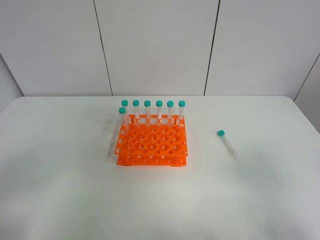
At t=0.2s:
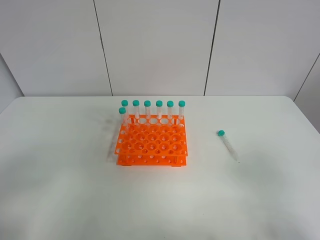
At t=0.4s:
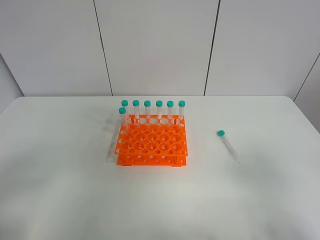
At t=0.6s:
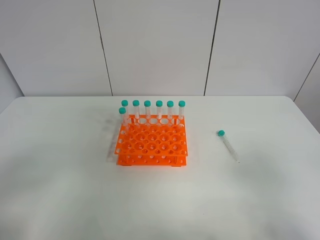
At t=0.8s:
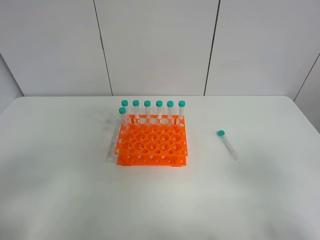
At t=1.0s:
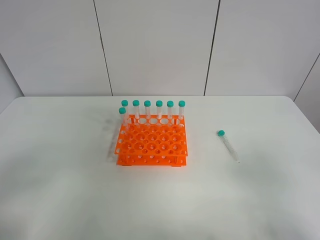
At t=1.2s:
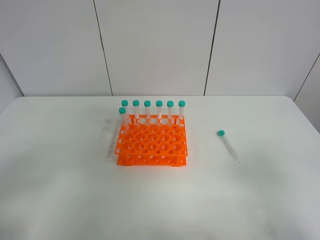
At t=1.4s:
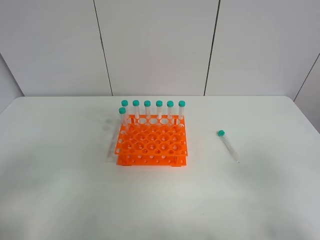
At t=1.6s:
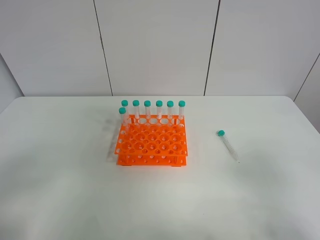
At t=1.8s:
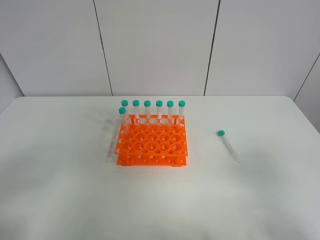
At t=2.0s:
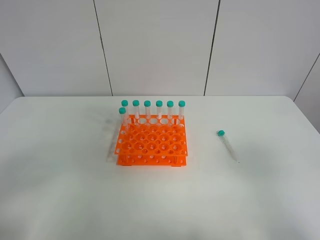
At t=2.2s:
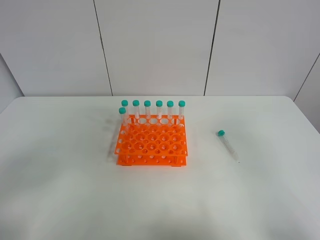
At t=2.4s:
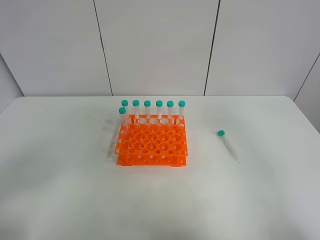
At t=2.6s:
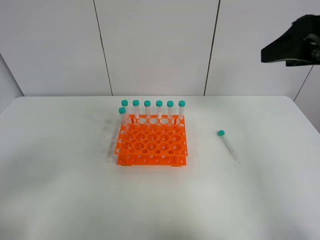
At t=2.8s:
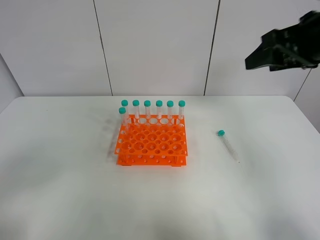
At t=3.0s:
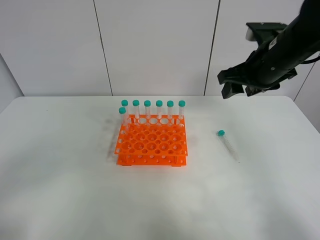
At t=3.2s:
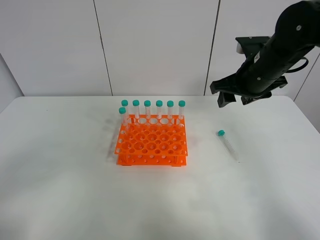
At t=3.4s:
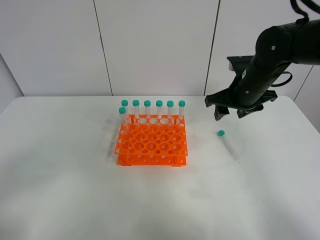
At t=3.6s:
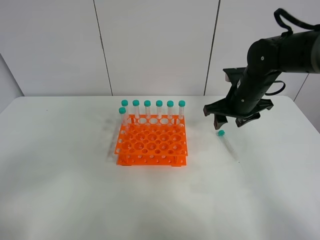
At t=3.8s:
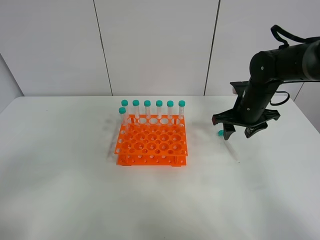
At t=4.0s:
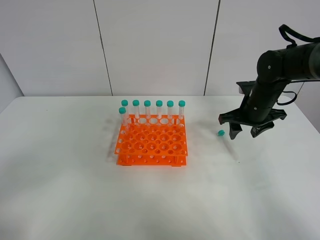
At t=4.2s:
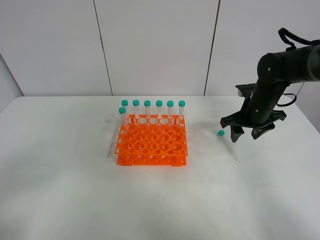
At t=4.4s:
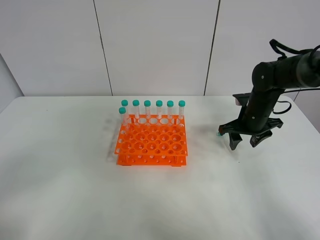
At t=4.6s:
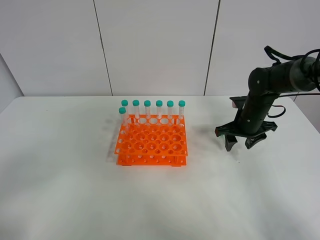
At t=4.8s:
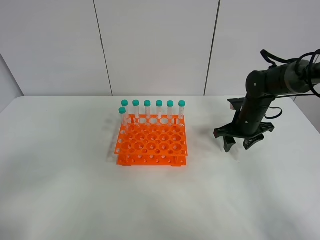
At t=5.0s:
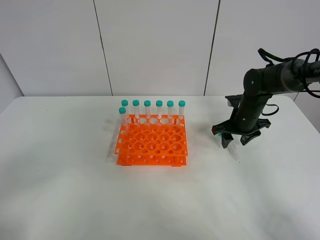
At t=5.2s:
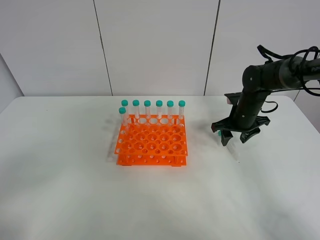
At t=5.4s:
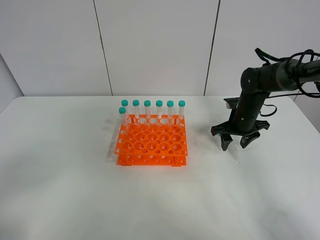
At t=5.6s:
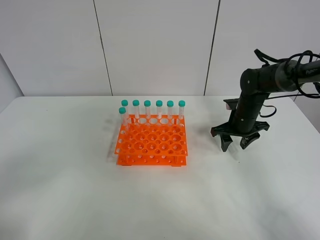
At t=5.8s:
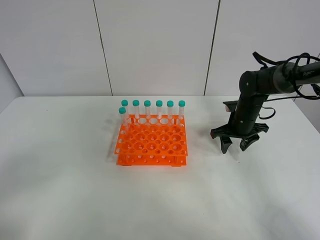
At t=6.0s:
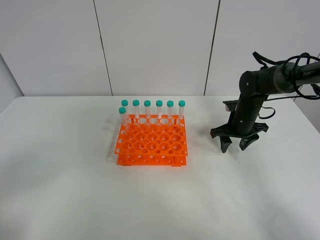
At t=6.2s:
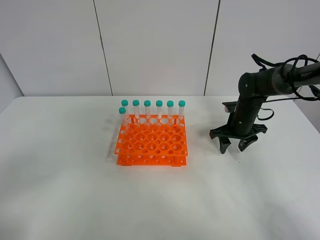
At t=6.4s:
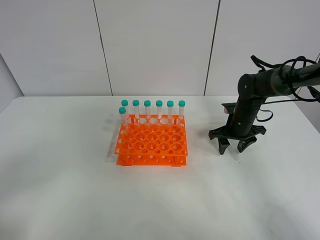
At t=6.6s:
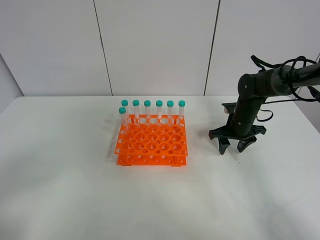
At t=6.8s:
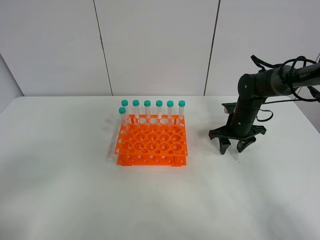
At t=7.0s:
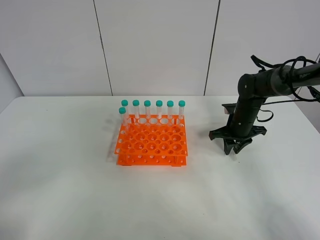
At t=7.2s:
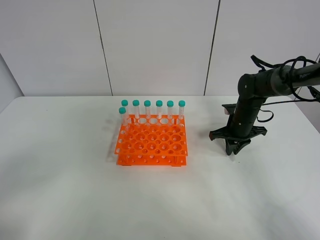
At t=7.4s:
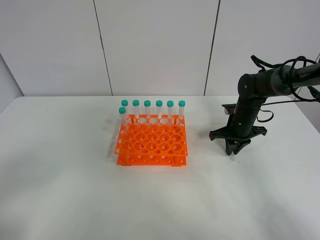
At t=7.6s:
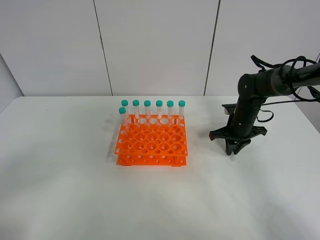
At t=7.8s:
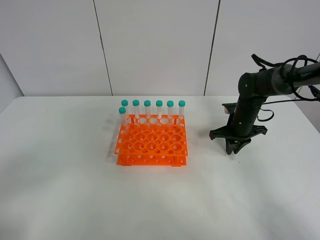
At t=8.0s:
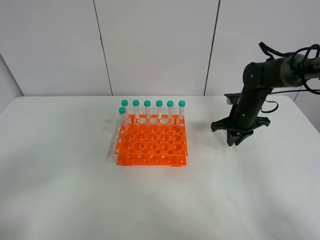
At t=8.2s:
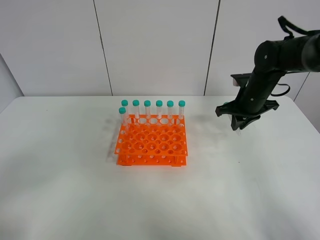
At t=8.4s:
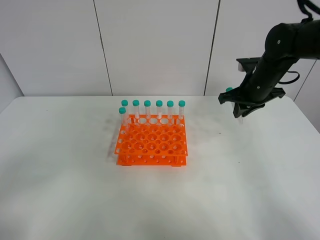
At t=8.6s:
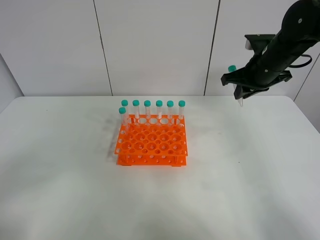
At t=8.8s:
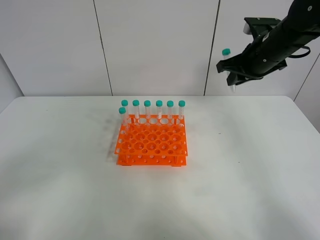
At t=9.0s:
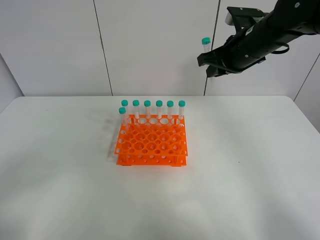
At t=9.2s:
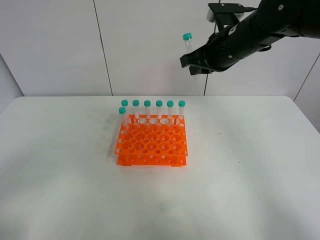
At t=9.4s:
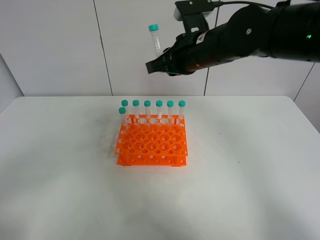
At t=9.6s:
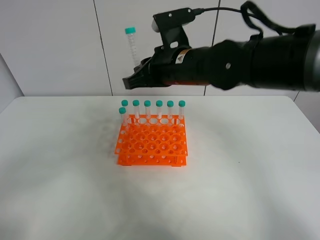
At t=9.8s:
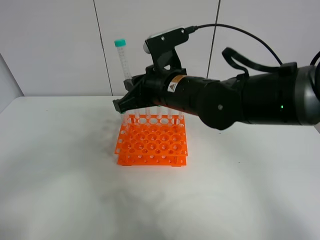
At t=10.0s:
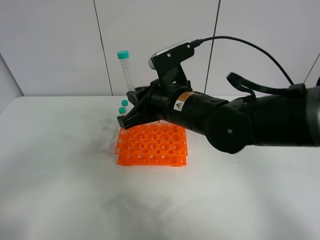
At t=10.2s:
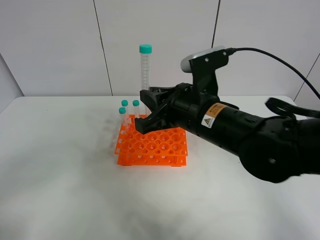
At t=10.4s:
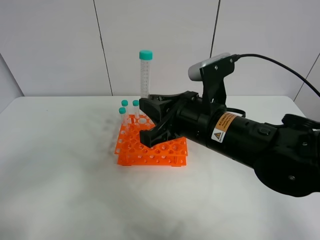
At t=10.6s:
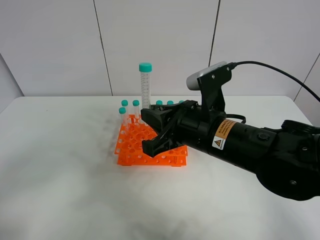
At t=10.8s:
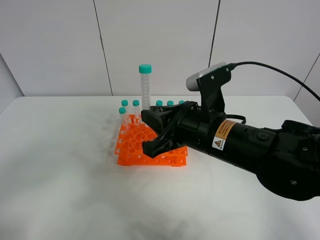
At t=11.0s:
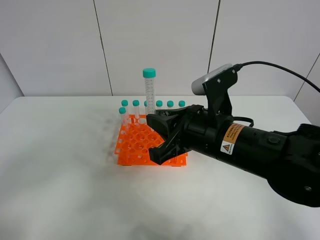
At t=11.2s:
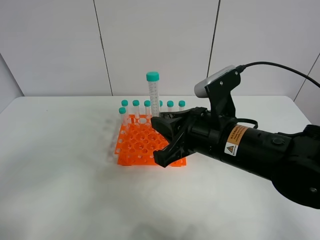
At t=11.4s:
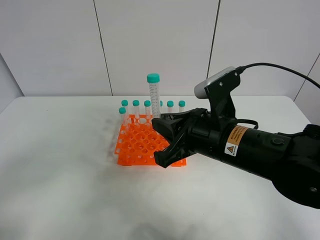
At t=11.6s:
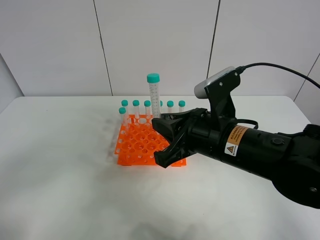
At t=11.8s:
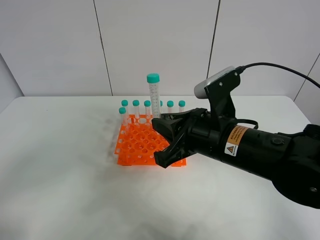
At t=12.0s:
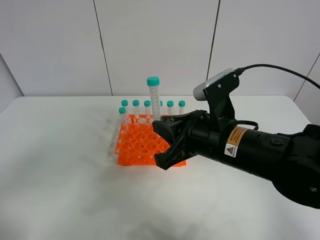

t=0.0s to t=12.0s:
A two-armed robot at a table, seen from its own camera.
Task of the whole recording: Put the test tube on the table back onto the test tube rack.
Step, t=0.0s to t=8.4s: Pick up the test tube with the right gripper.
t=0.0s to t=1.6s: Both grippers stay put.
t=1.6s to t=3.0s: The right gripper goes roughly 35 cm forward.
t=3.0s to t=4.4s: The right gripper goes approximately 15 cm downward.
t=4.4s to t=6.0s: There are only small adjustments of the grippers.
t=6.0s to t=7.6s: The right gripper closes up.
t=7.6s to t=9.0s: The right gripper is displaced upward by about 20 cm.
t=9.0s to t=10.4s: The right gripper goes about 20 cm backward, to the left and downward.

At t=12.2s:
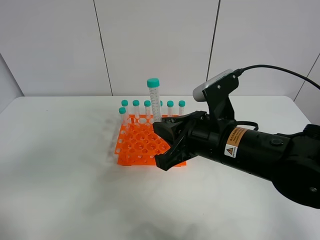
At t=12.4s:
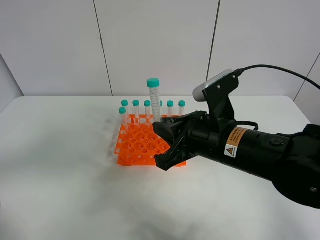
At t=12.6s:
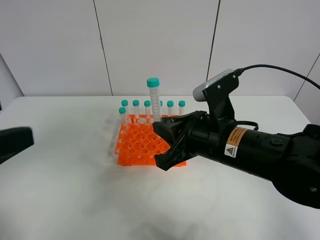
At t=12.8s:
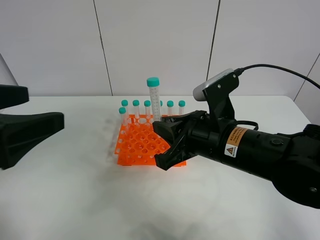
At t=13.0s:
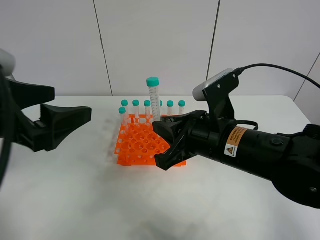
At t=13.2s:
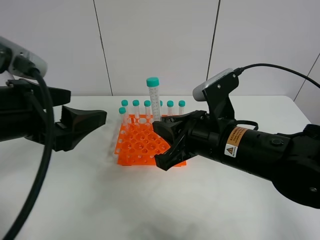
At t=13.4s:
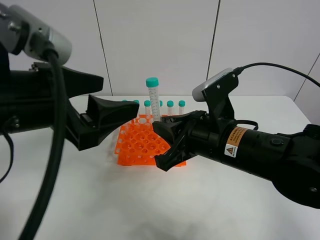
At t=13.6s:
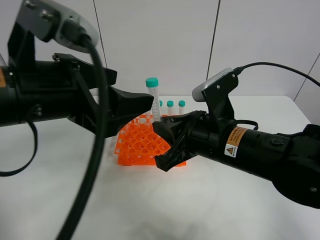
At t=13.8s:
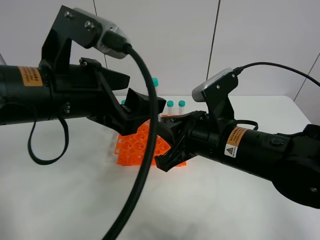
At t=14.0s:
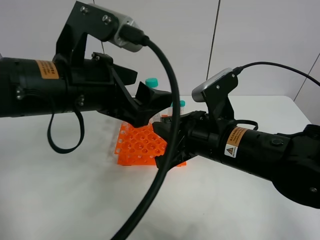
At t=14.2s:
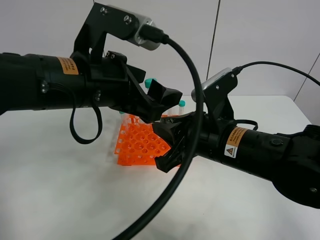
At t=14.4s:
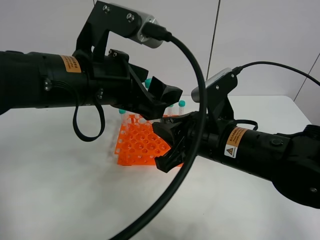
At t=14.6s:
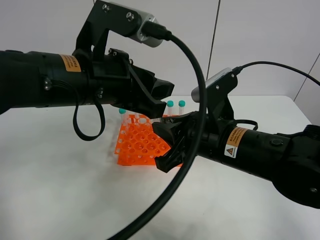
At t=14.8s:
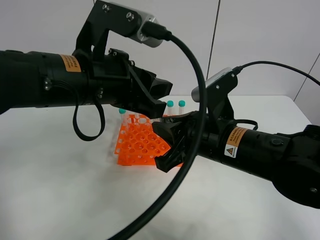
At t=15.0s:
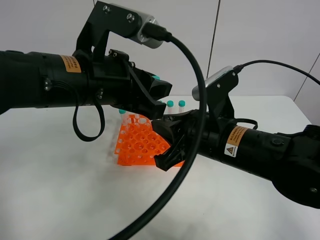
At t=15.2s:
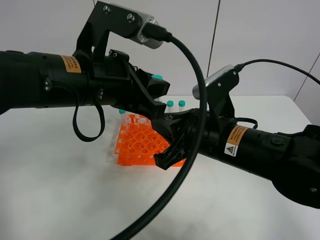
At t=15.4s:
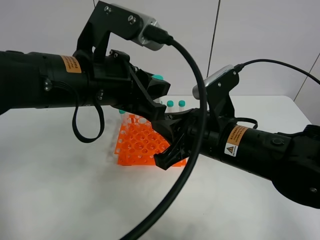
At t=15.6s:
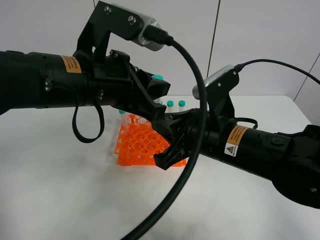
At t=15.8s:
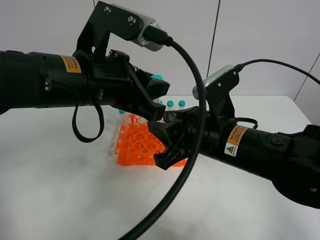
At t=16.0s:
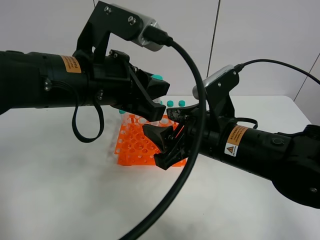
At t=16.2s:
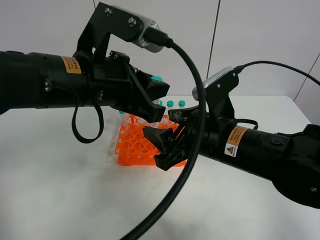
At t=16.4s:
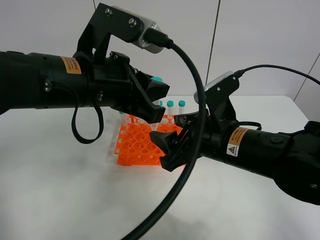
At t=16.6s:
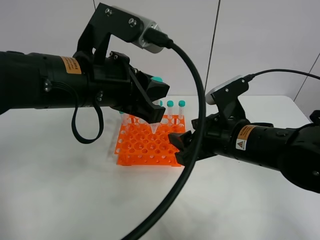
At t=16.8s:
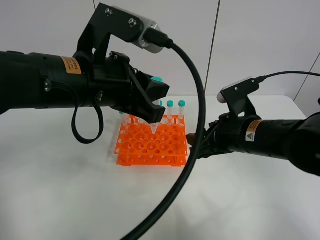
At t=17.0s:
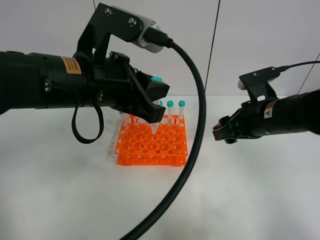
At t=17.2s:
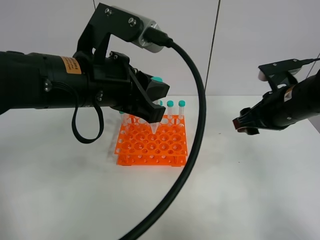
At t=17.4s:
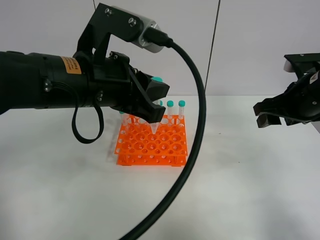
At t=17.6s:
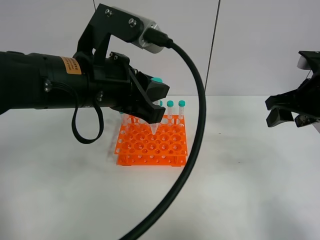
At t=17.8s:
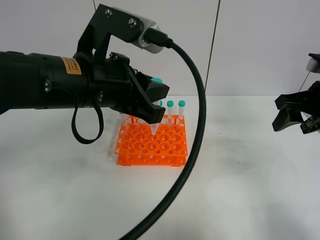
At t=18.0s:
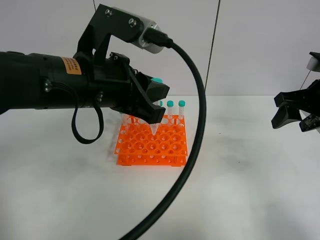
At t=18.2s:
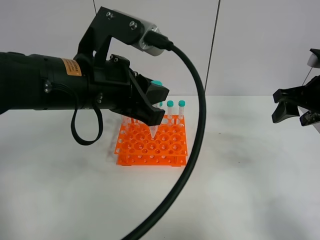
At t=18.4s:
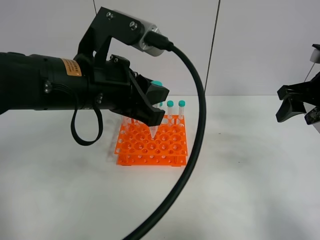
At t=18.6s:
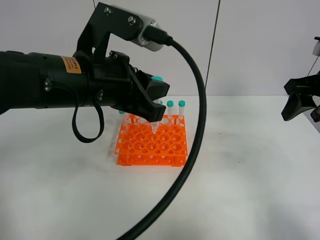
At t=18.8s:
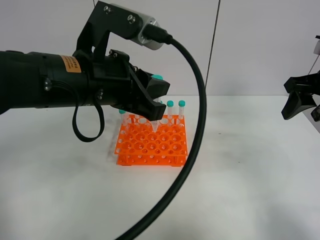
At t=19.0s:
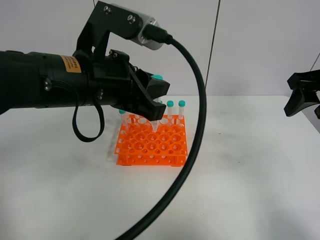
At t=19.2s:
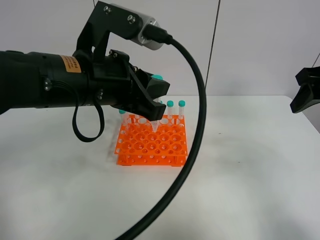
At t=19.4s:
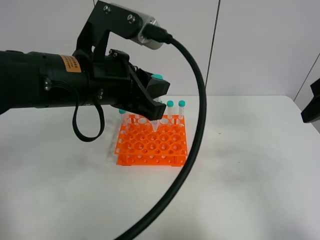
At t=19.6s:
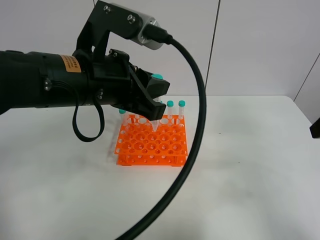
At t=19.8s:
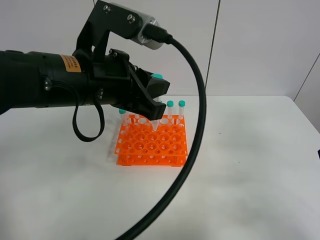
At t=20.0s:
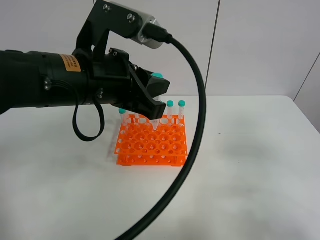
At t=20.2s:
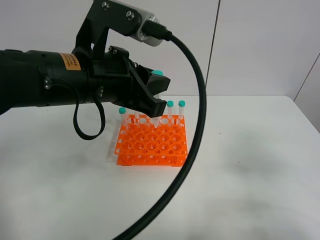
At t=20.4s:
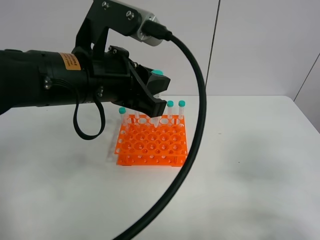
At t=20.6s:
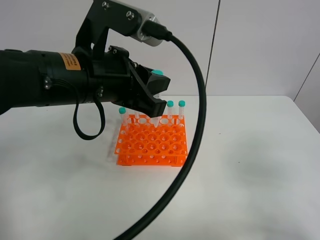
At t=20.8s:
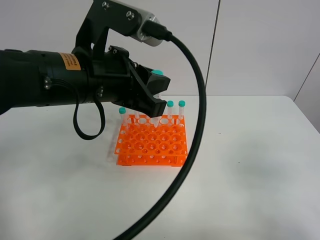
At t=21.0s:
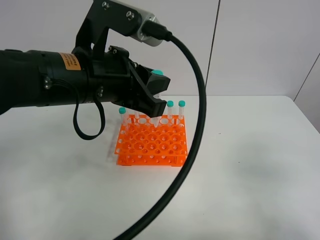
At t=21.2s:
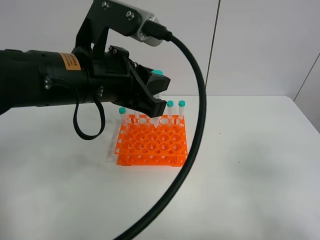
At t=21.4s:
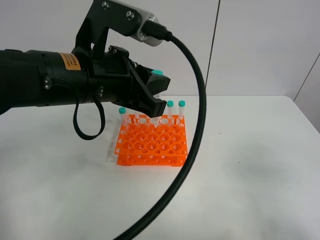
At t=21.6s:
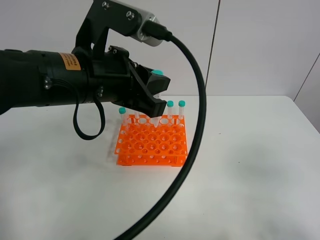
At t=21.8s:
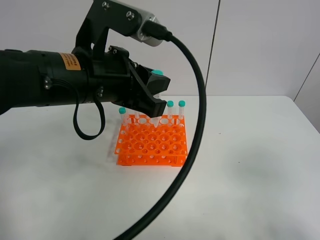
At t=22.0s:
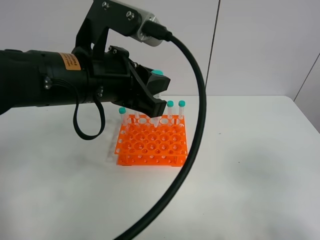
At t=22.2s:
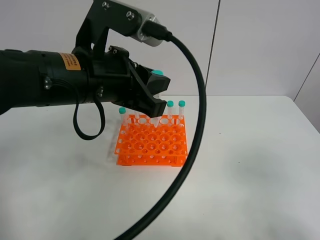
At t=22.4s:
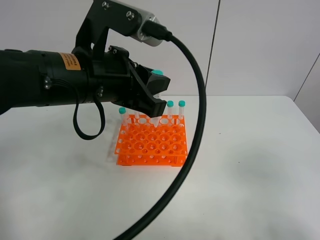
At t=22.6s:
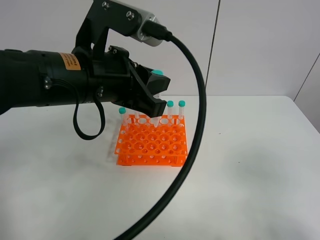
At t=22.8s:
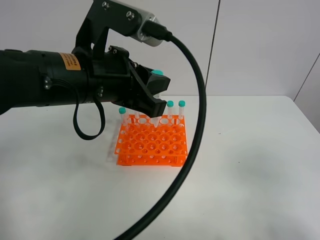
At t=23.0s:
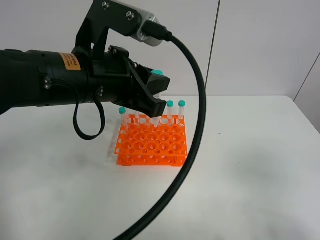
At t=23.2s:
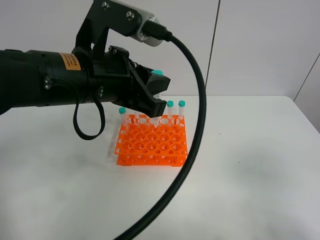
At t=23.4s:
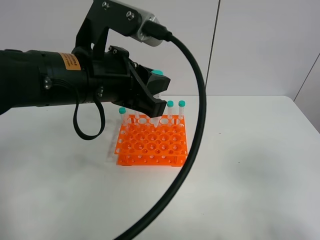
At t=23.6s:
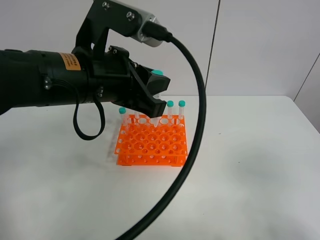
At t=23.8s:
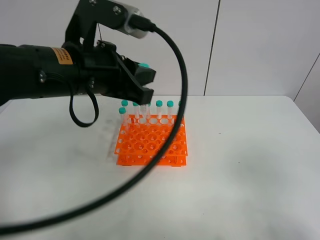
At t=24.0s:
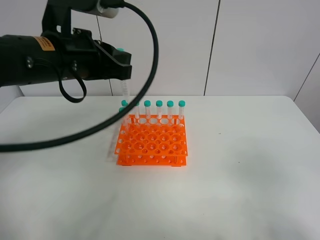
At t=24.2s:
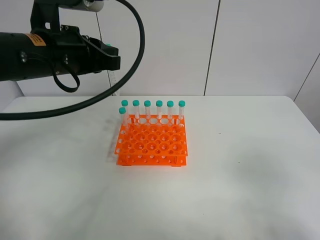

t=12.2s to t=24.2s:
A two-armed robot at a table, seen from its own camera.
Task of the whole recording: Put the test tube on the table back onto the test tube rack.
Step, t=12.2s to t=16.8s: Move the test tube from the right gripper to the left gripper.
t=12.2s to t=13.8s: The left gripper is displaced forward and to the right by some 25 cm.
t=13.8s to t=15.2s: The left gripper closes up.
t=15.2s to t=16.6s: The right gripper changes place by some 5 cm, and opens up.
t=16.6s to t=18.2s: The right gripper travels to the right and upward by approximately 20 cm.
t=18.2s to t=19.8s: The right gripper travels backward by some 15 cm.
t=19.8s to t=21.2s: The right gripper heads backward, covering about 10 cm.
t=22.6s to t=24.2s: The left gripper travels to the left and forward by approximately 10 cm.
